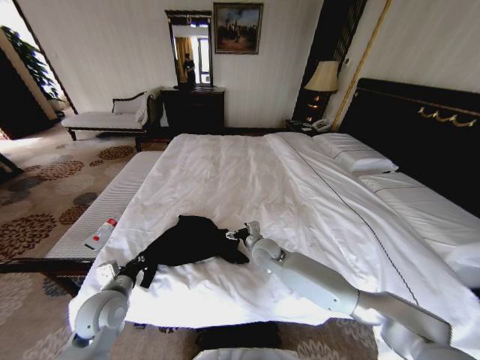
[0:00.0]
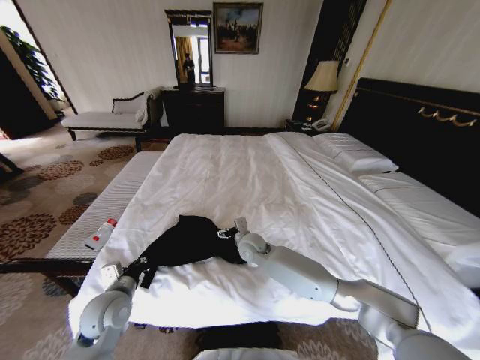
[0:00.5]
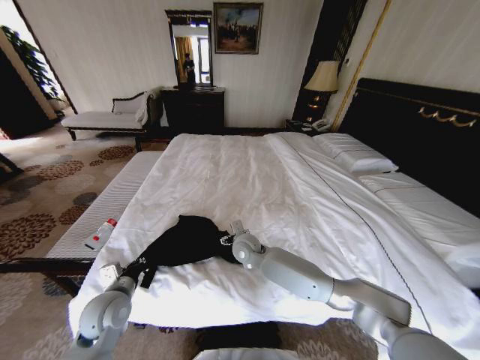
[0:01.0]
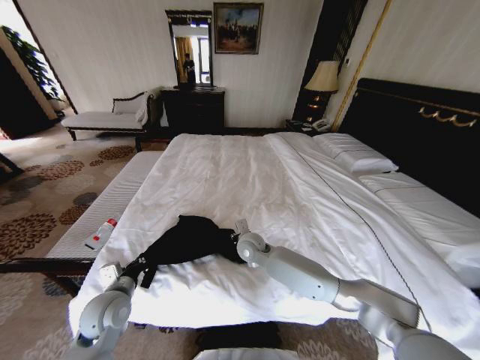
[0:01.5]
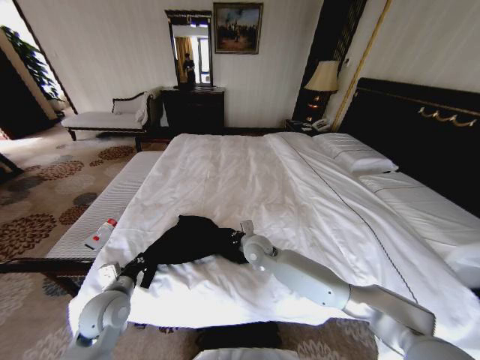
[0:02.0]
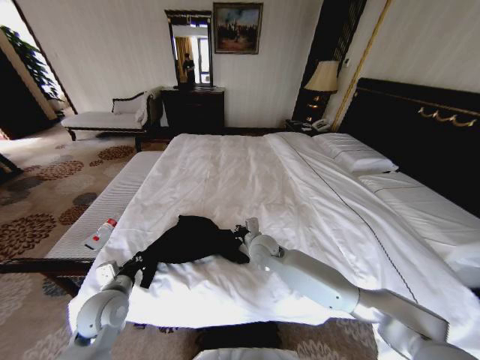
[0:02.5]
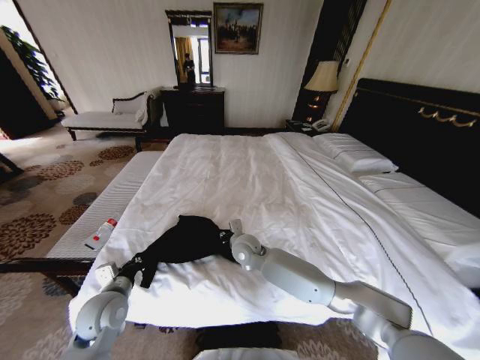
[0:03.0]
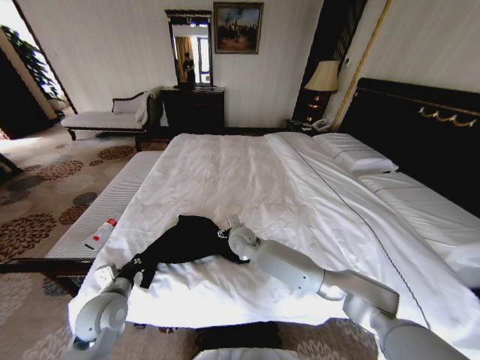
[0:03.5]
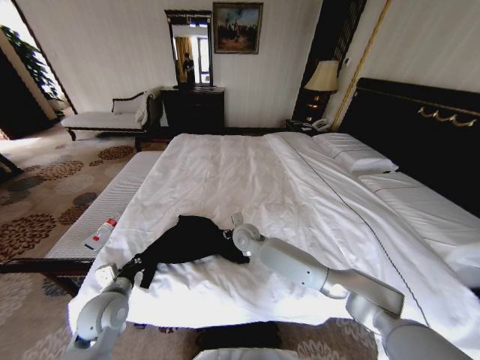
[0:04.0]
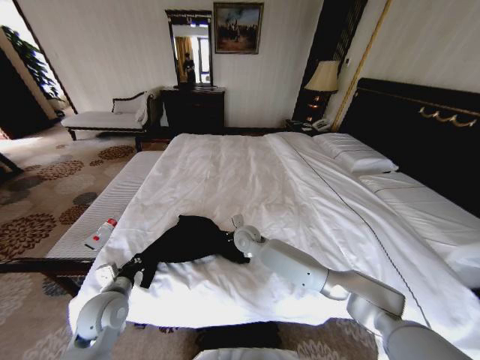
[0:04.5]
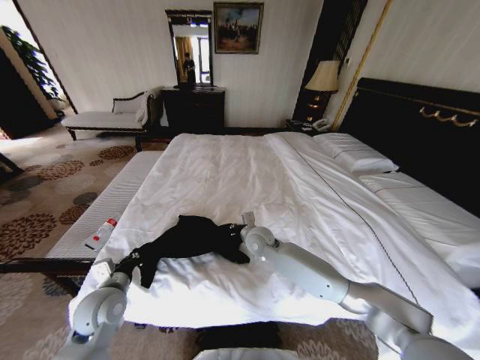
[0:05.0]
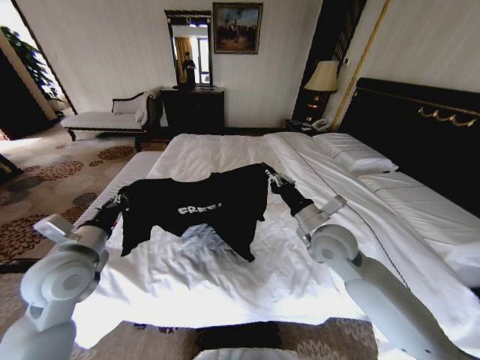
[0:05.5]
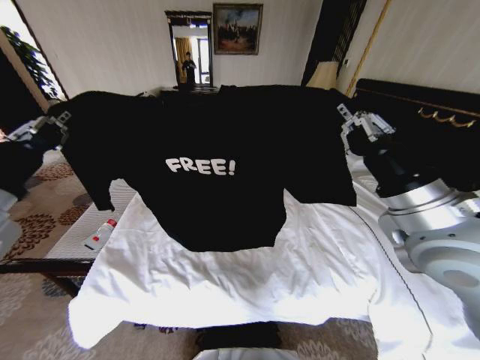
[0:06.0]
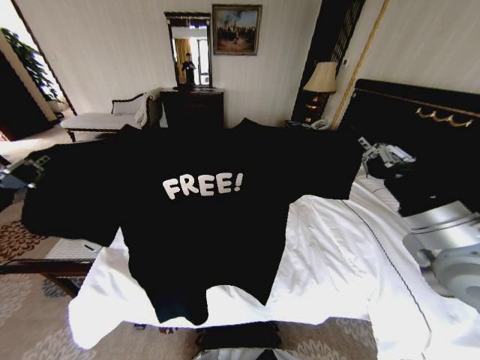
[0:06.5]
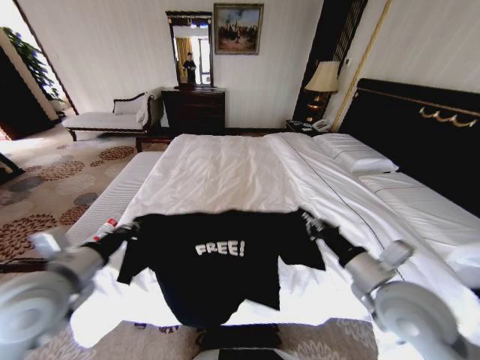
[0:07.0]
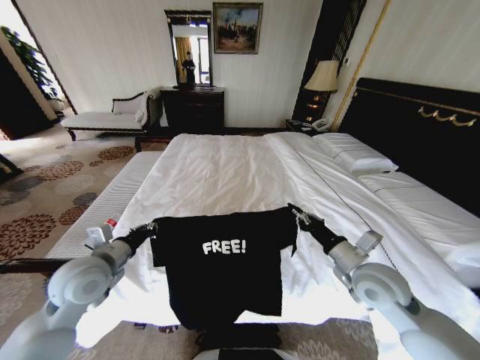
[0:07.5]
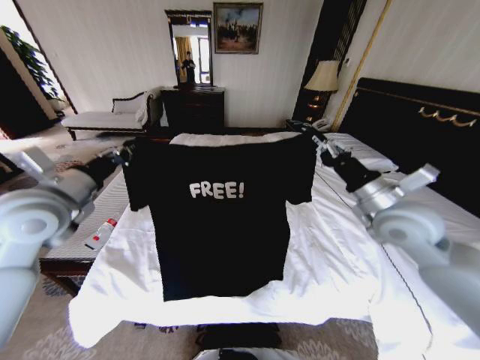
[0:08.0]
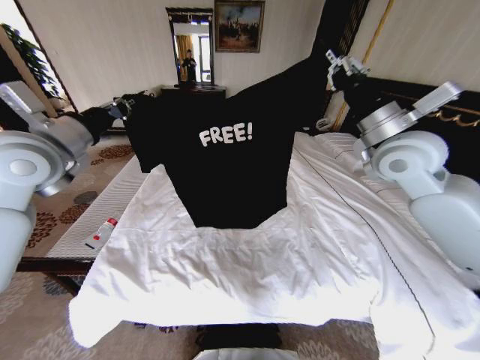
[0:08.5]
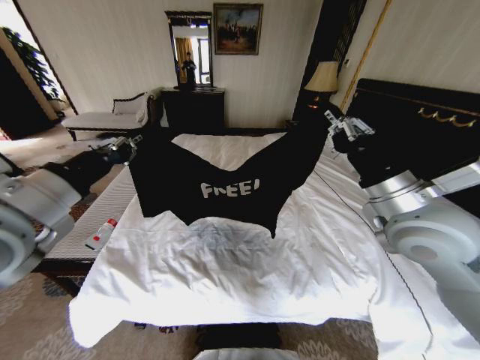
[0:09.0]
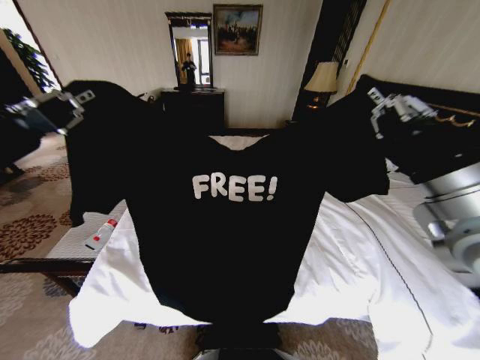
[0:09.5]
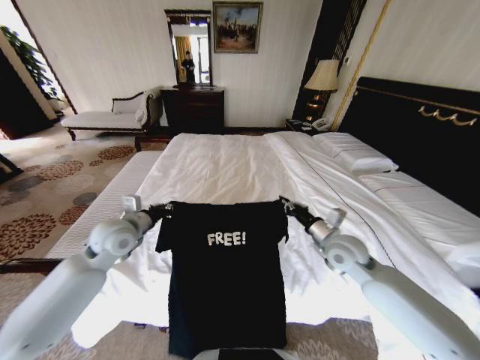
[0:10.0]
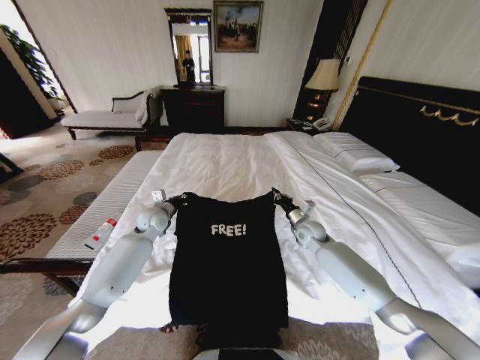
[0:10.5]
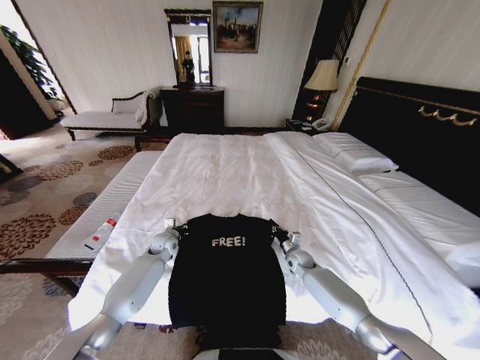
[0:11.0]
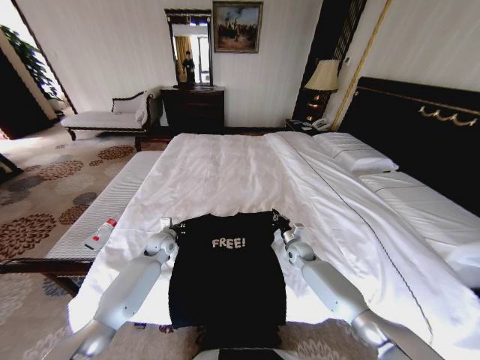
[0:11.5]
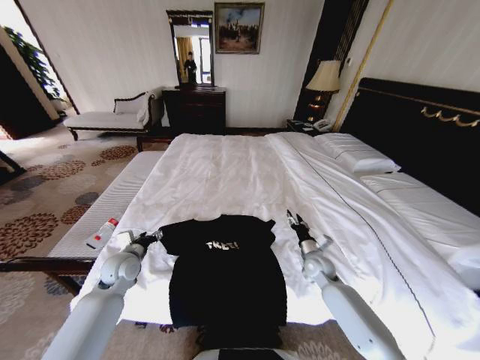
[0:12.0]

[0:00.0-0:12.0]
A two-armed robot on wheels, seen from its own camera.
Task of the whole recording: Fold the clothes on the bed.
0:00.0 to 0:02.0: The right gripper closes its fingers.
0:02.0 to 0:04.0: The right gripper changes place by about 5 cm, and opens up.
0:04.0 to 0:06.0: The left gripper moves upward, approximately 30 cm, while the right gripper goes some 40 cm upward, to the right and backward, and closes its fingers.
0:06.0 to 0:08.0: The grippers both shift forward by approximately 10 cm. The left gripper reaches roughly 20 cm downward, then returns; the right gripper moves approximately 20 cm downward and comes back.
0:08.0 to 0:10.0: The left gripper is displaced downward by approximately 15 cm, while the right gripper swings up and down, some 25 cm each way, with 3 reversals.
0:10.0 to 0:12.0: The two grippers go roughly 15 cm downward. The right gripper opens up, while the left gripper opens.

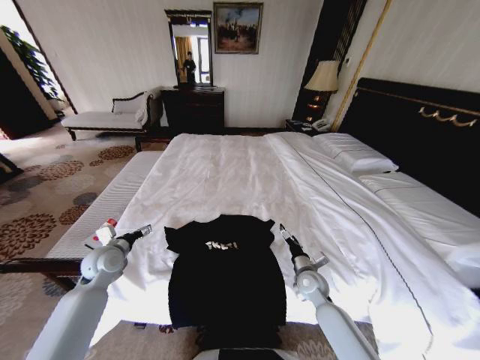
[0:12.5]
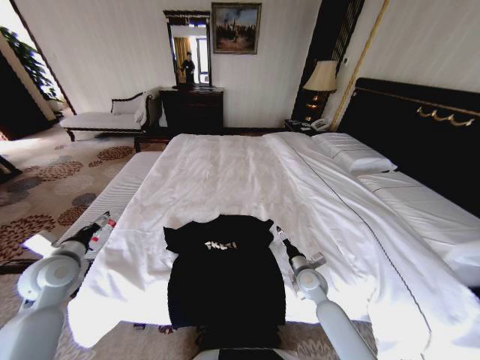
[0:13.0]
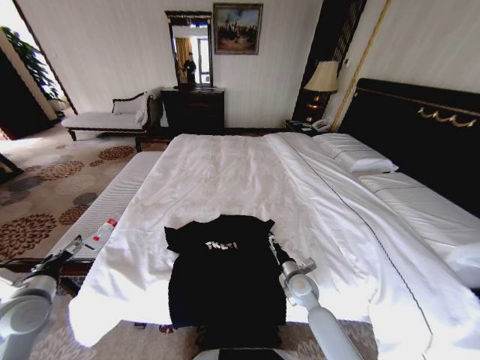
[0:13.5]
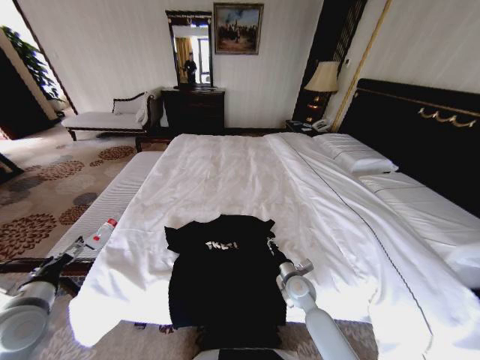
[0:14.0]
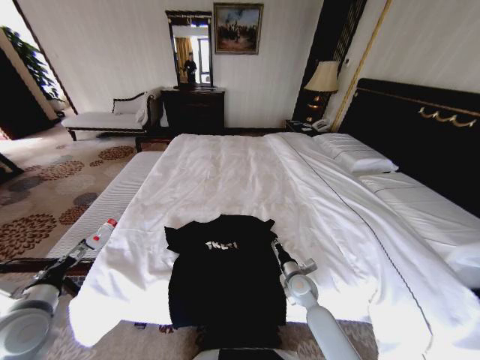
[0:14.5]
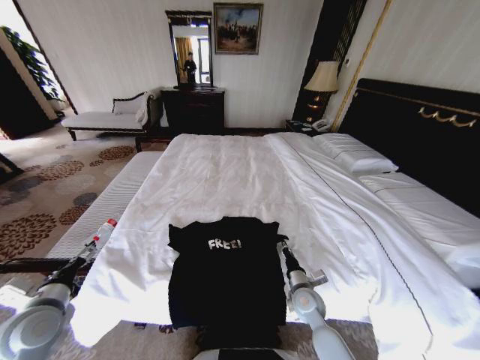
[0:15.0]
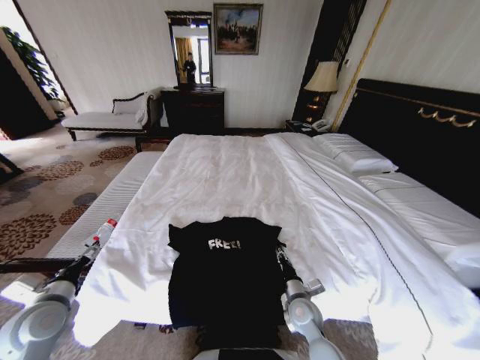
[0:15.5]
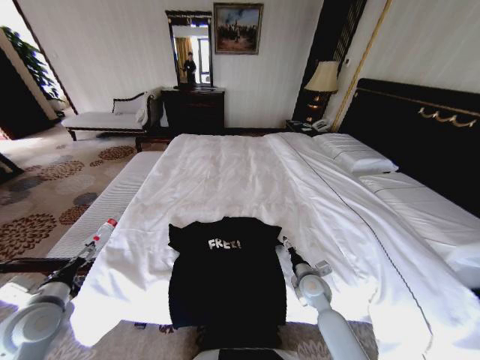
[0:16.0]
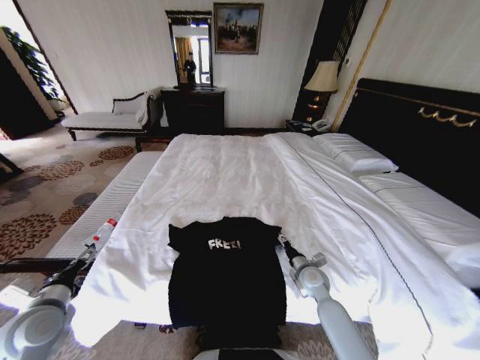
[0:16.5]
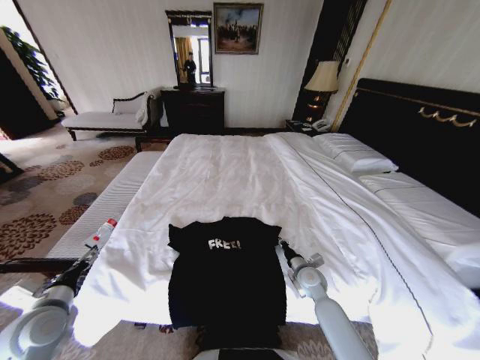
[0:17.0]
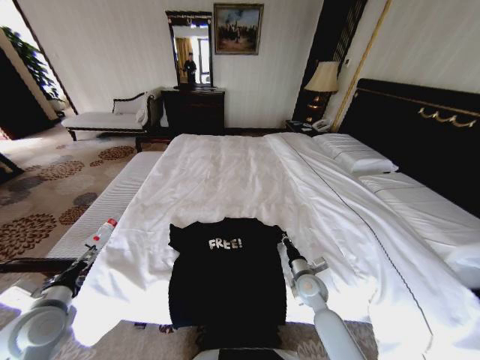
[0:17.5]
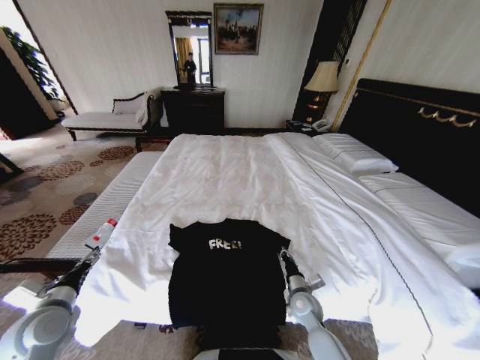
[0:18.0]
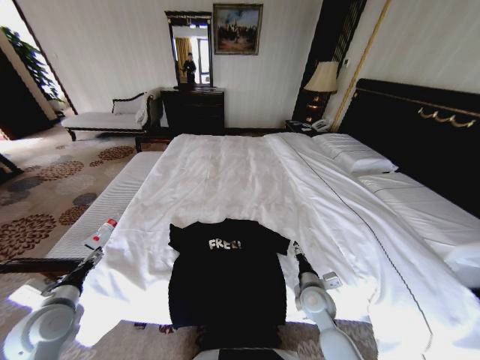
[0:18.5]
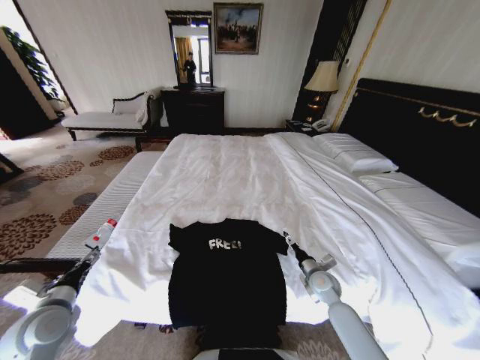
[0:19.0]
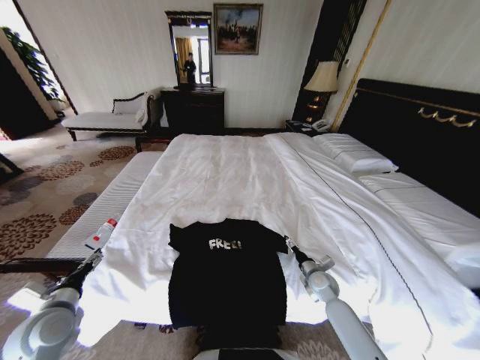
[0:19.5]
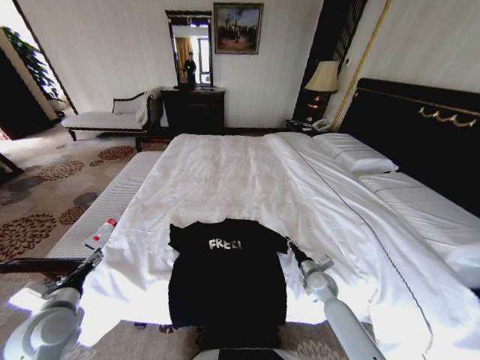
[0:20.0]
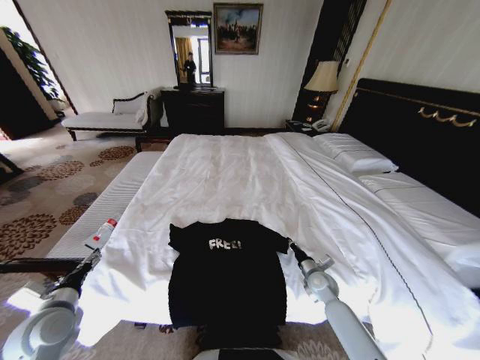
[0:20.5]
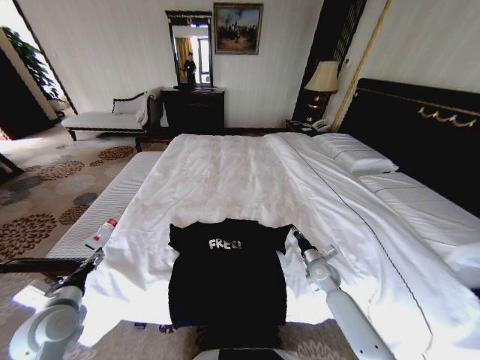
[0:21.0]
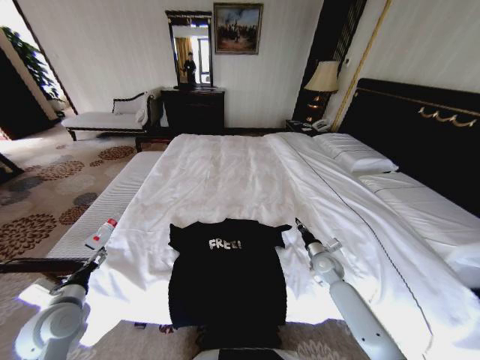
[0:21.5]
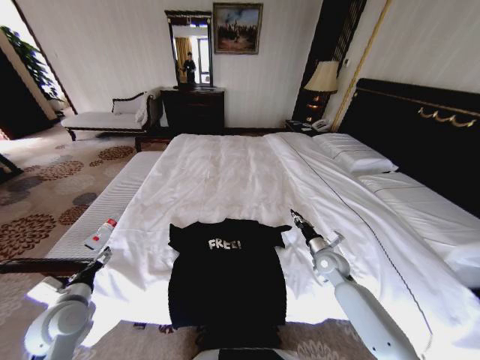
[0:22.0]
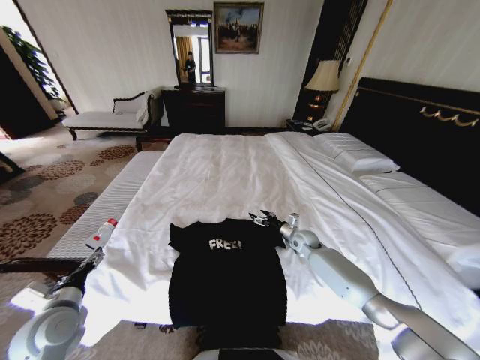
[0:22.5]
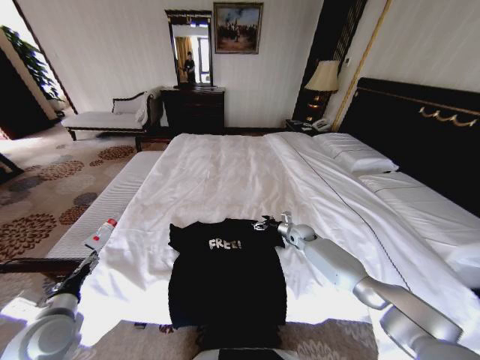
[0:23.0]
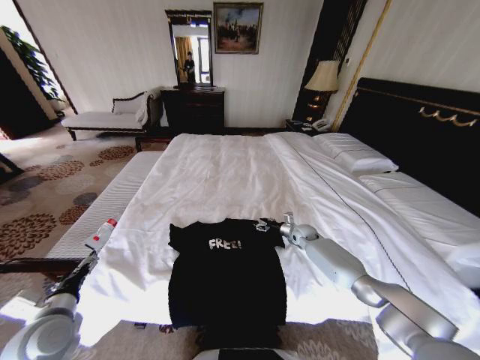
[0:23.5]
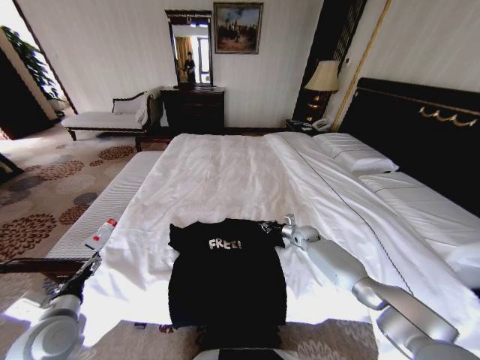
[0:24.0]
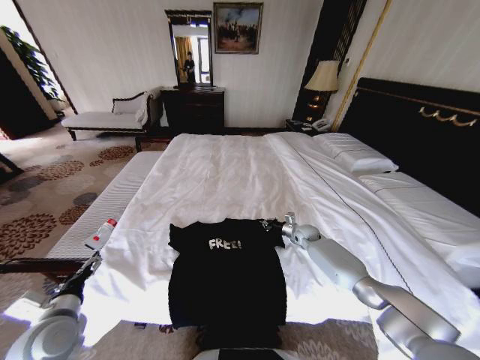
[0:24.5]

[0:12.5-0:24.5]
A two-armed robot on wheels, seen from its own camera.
Task of the whole recording: Fold the clothes on the bed.
0:12.5 to 0:14.5: The left gripper moves backward, approximately 15 cm, while the right gripper closes.
0:14.5 to 0:16.5: The right gripper moves roughly 5 cm backward and comes back, and opens its fingers.
0:16.5 to 0:18.5: The right gripper moves backward, about 5 cm, and closes, then opens again.
0:18.5 to 0:20.5: The right gripper goes about 10 cm to the right, forward and downward, and closes.
0:20.5 to 0:22.5: The right gripper shifts roughly 15 cm forward, and opens its fingers.
0:22.5 to 0:24.5: The right gripper moves approximately 5 cm, and closes.

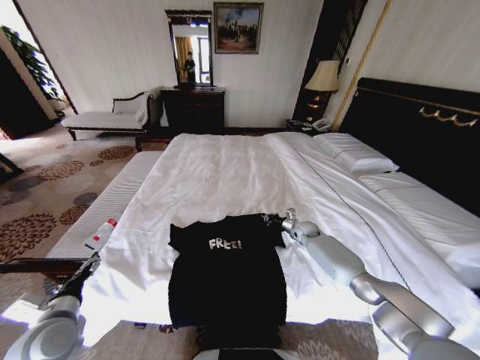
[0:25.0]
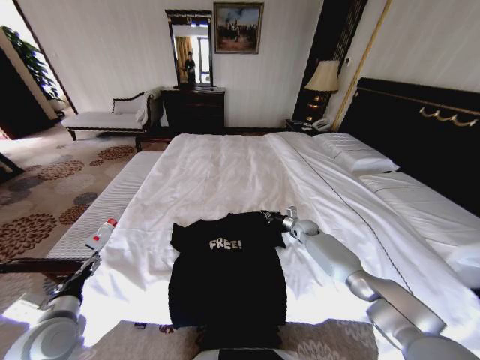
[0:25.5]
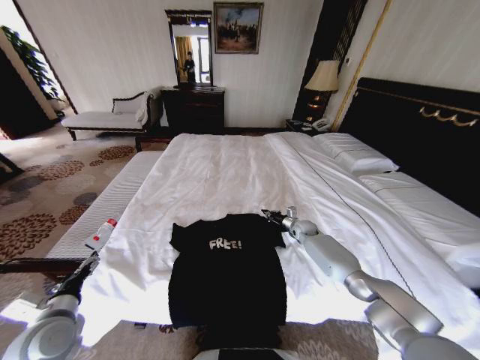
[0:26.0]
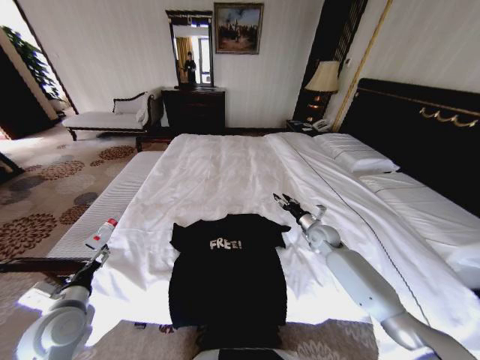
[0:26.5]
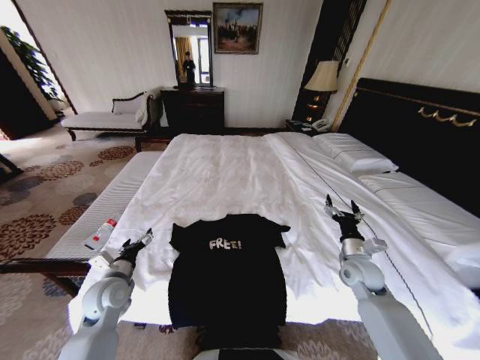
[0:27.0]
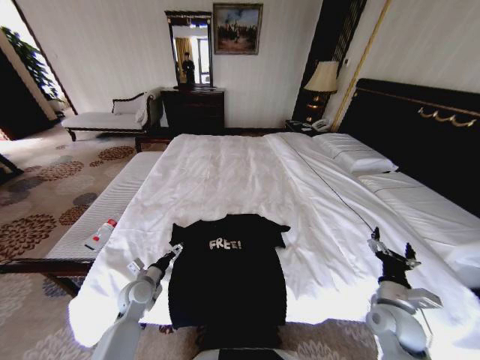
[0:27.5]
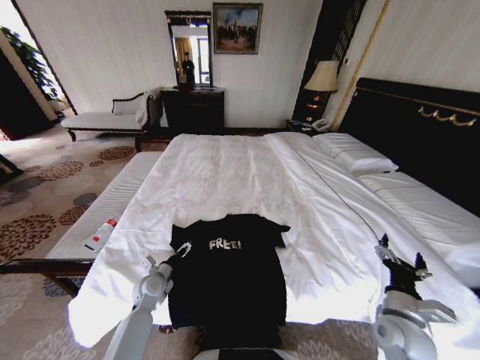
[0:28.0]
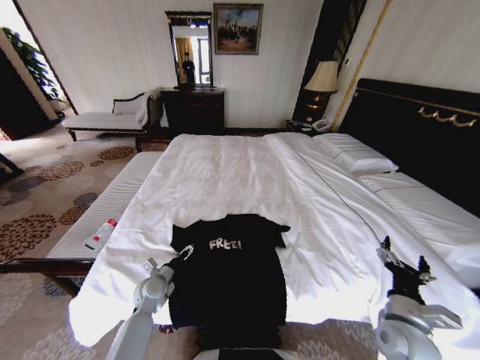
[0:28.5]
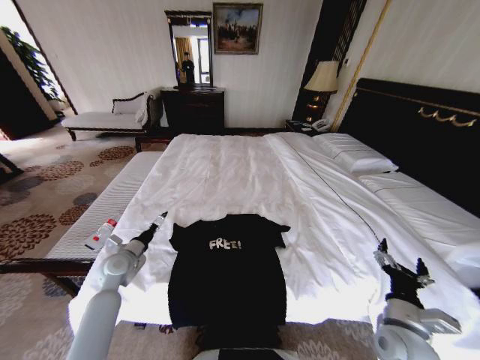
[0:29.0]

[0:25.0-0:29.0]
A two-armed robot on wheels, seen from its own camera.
Task of the whole recording: Fold the clothes on the bed.
0:25.0 to 0:27.0: The left gripper travels forward and to the right by about 10 cm. Meanwhile the right gripper travels backward by some 25 cm, and opens.
0:27.0 to 0:29.0: The right gripper travels backward by some 15 cm. The left gripper heads forward, covering approximately 10 cm, and goes downward and returns, about 10 cm each way.
